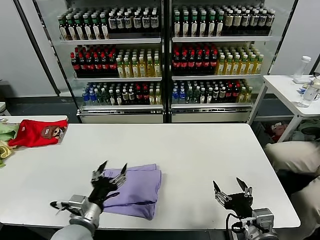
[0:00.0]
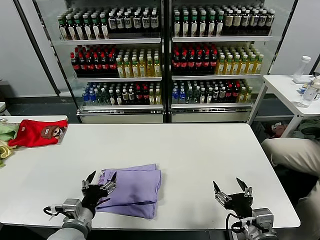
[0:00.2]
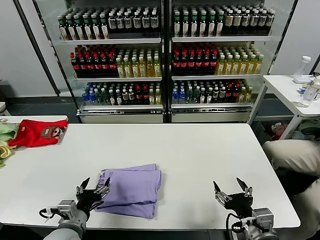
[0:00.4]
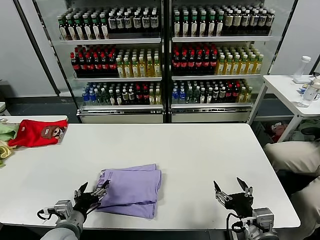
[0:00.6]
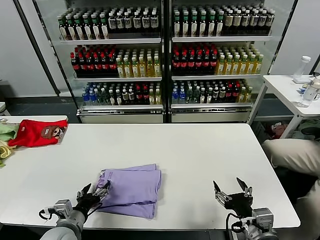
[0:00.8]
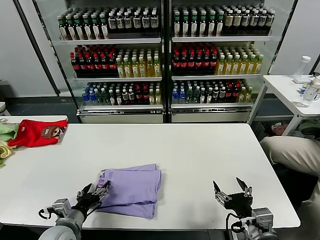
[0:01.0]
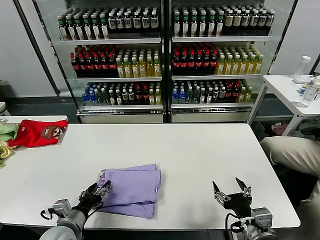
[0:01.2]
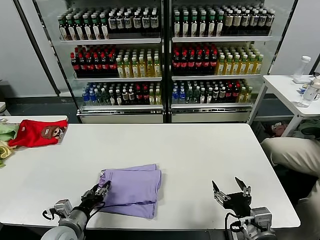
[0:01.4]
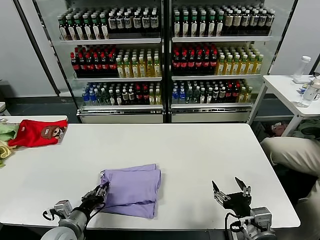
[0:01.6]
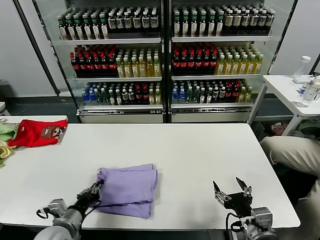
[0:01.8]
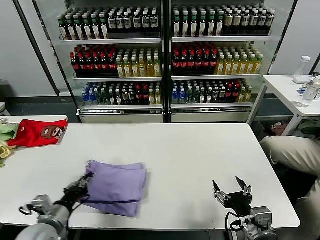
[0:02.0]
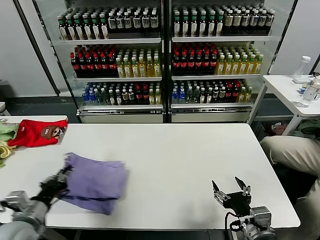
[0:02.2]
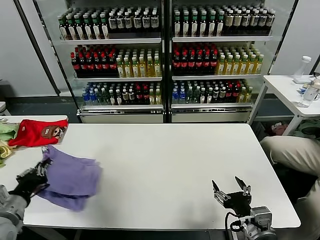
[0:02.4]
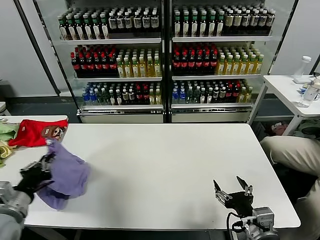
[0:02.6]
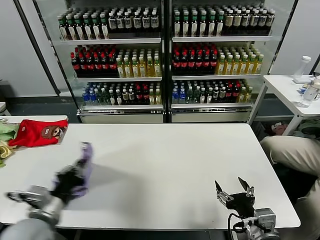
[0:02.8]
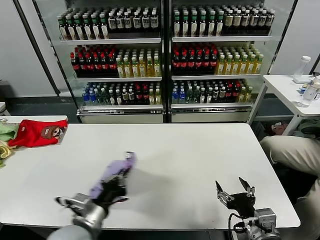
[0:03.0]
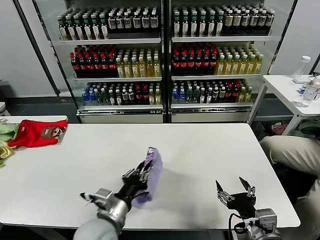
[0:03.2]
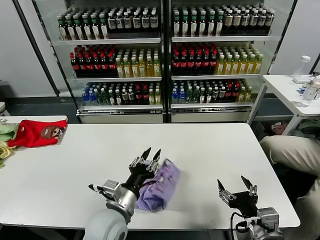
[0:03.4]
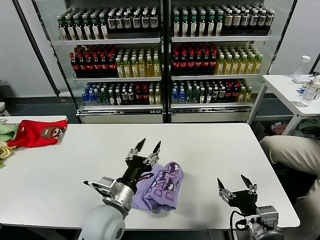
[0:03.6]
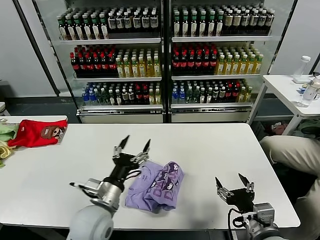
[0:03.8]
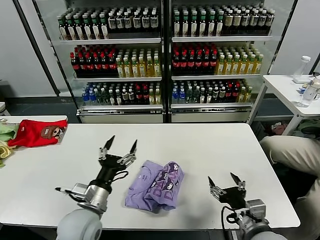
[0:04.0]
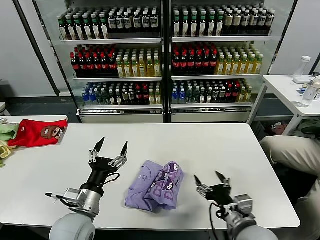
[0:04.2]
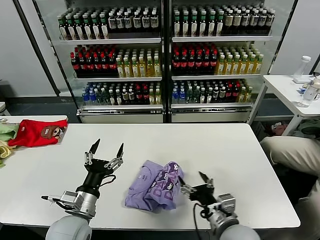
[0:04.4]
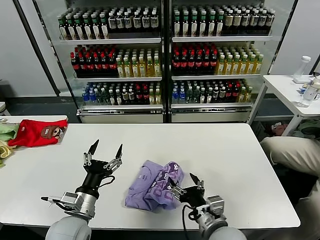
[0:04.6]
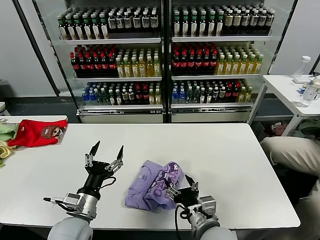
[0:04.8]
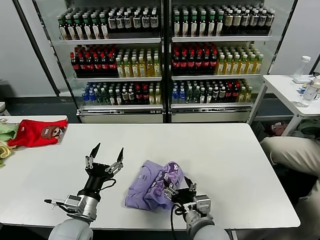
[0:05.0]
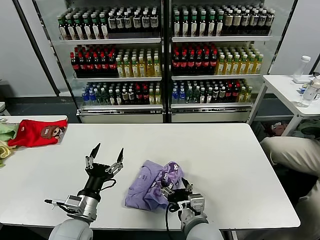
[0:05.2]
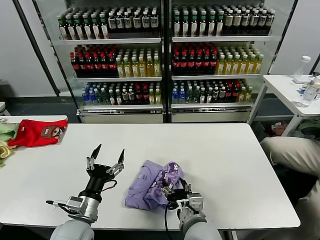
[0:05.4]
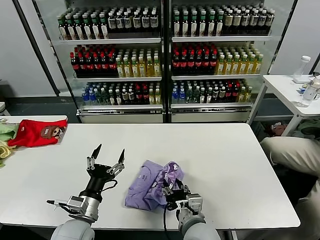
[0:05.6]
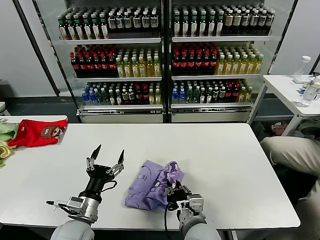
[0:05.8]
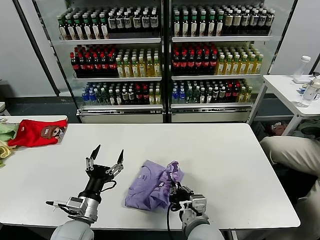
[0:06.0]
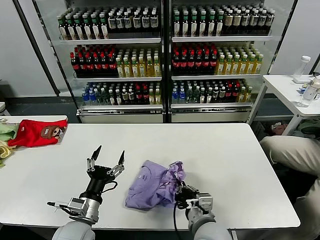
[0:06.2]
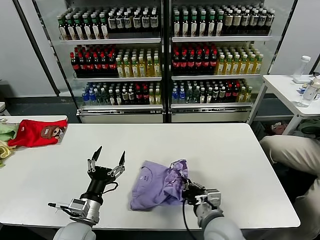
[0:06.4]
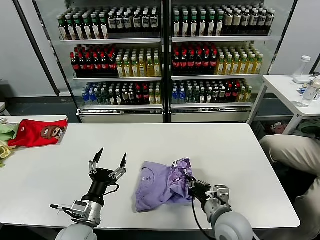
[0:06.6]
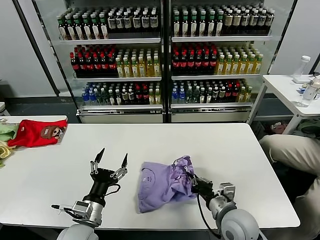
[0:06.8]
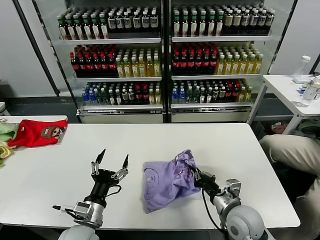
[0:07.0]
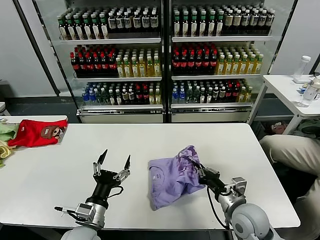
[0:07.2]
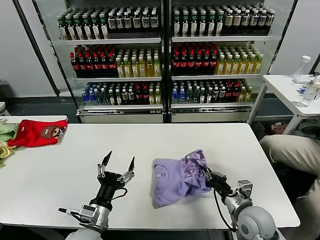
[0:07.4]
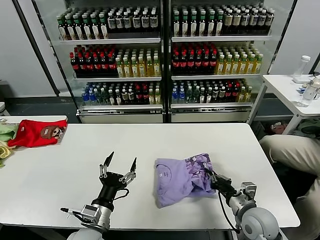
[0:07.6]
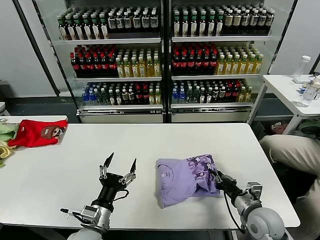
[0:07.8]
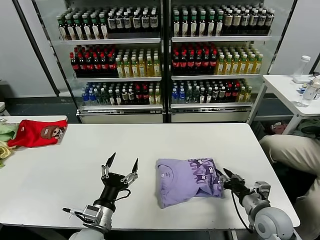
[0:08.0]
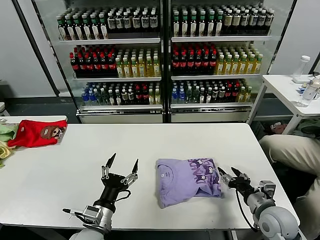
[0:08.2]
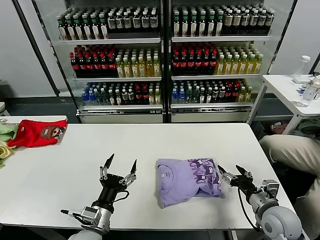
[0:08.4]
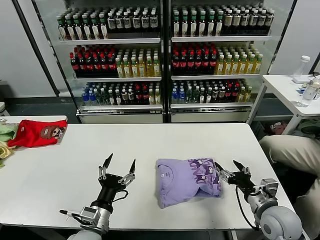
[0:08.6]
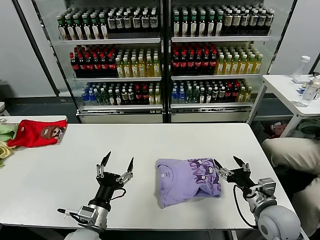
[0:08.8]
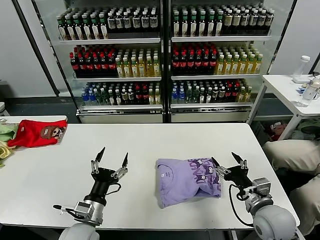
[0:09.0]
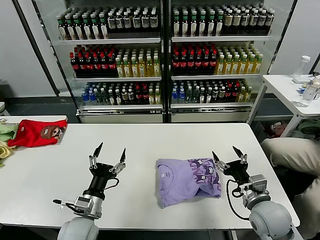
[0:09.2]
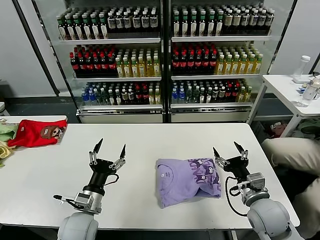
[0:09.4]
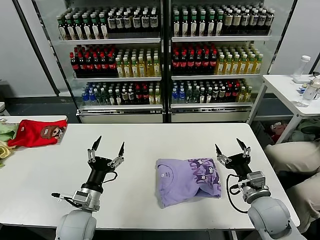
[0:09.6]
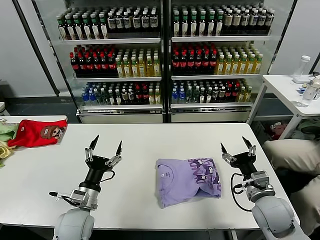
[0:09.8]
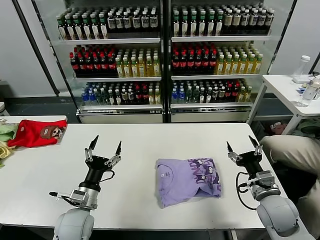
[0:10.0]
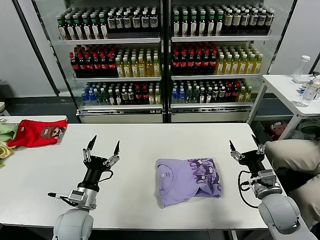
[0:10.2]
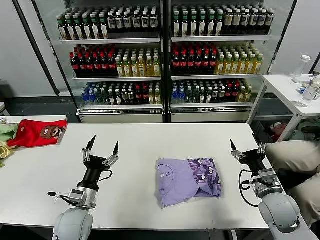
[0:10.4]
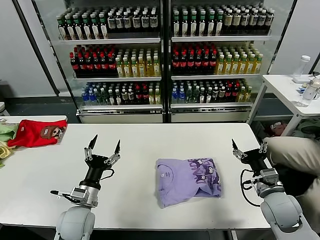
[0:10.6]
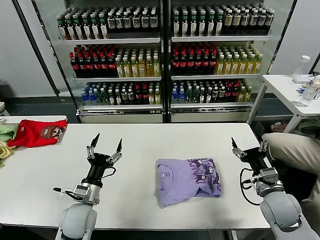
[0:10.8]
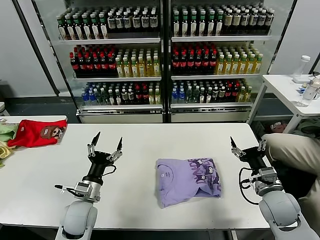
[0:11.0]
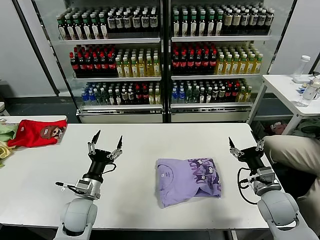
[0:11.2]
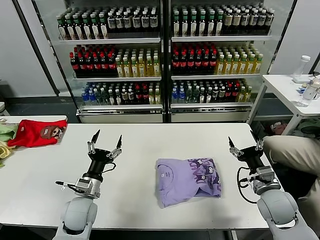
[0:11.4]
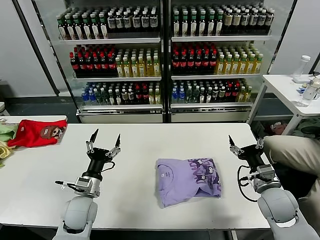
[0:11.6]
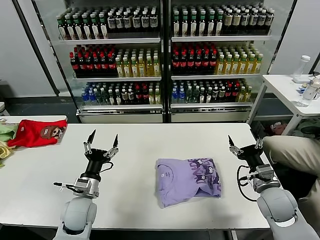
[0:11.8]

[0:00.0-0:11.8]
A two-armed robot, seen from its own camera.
Task of the whole recording: fold and organize the clothes.
Step, 0:00.0 to 0:03.6: Flip the folded clothes over with left gripper.
Step, 0:03.8 to 0:08.2: Drag the clothes to the center of the table.
0:00.0 to 0:01.4: The left gripper is displaced to the left and downward by about 10 cm, and closes up.
0:01.4 to 0:03.0: The left gripper shifts approximately 15 cm upward and to the right, and closes.
0:03.0 to 0:04.4: The right gripper is displaced to the left by about 5 cm; the left gripper travels to the right and back again, approximately 10 cm each way, and opens.
0:04.4 to 0:06.0: The right gripper heads to the left, covering approximately 10 cm, and closes up.
0:06.0 to 0:07.4: The right gripper travels to the right by some 15 cm.
0:07.4 to 0:08.8: The right gripper travels to the right by about 5 cm, and opens up.
0:08.8 to 0:10.4: The left gripper heads forward, covering roughly 5 cm.
0:10.4 to 0:11.8: The grippers make only small movements.
